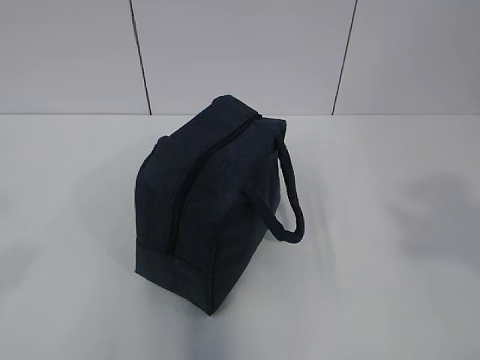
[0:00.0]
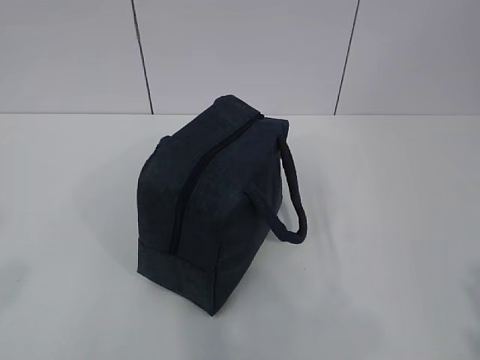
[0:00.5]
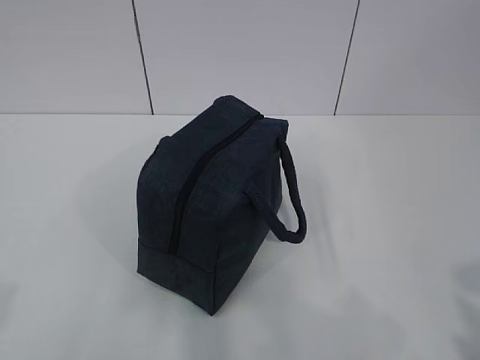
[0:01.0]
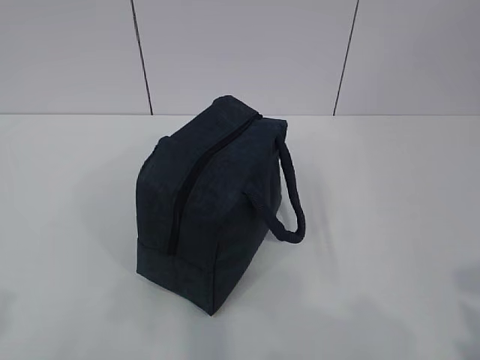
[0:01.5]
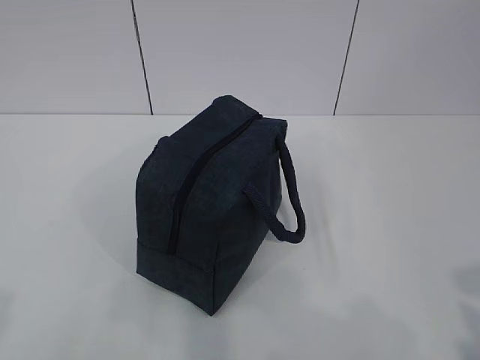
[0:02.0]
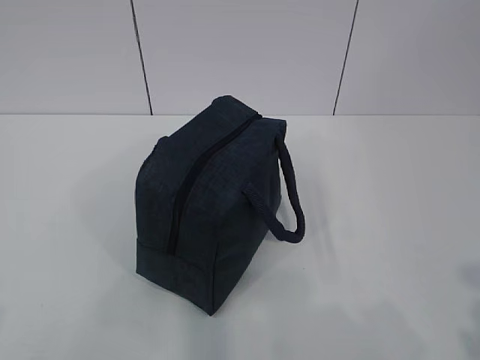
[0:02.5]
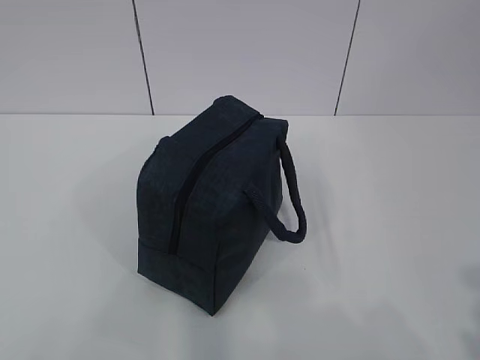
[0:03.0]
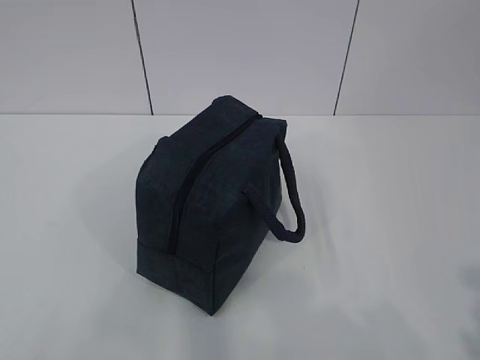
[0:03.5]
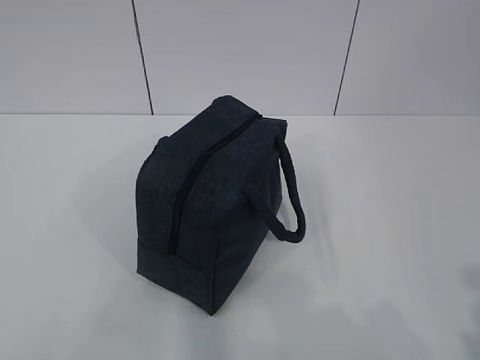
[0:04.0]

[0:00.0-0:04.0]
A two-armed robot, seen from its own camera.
0:00.0 to 0:02.0: The right gripper moves downward, approximately 15 cm; the left gripper travels downward by about 5 cm.

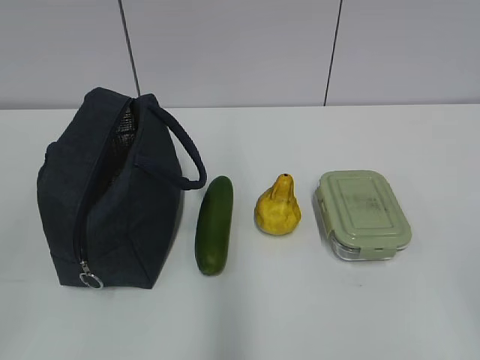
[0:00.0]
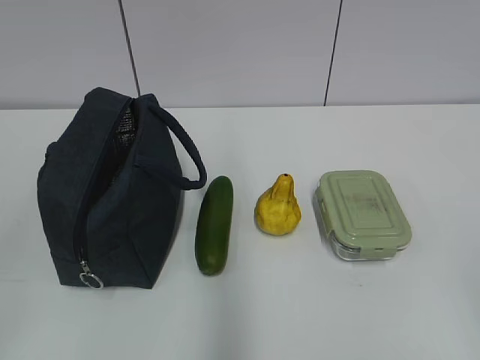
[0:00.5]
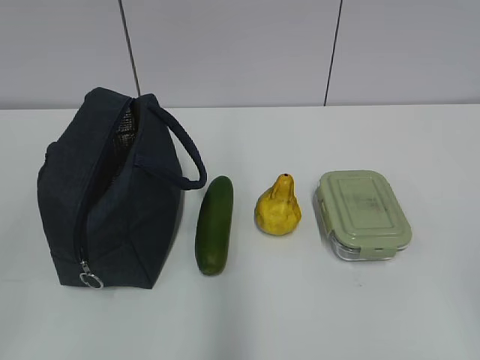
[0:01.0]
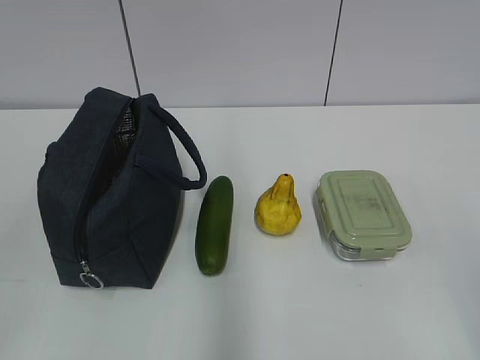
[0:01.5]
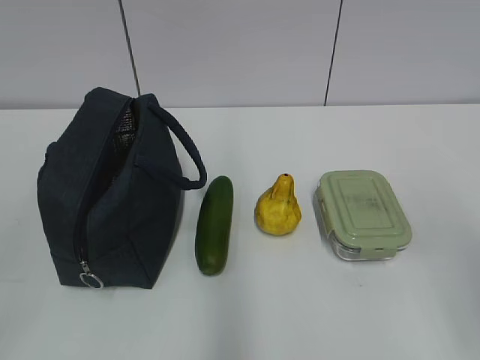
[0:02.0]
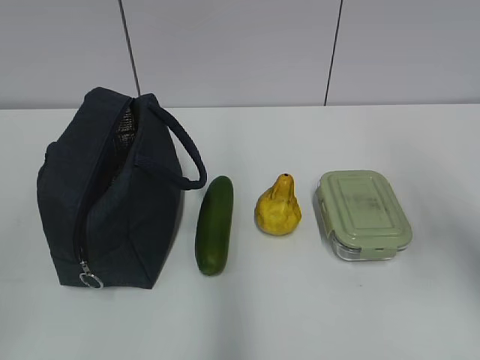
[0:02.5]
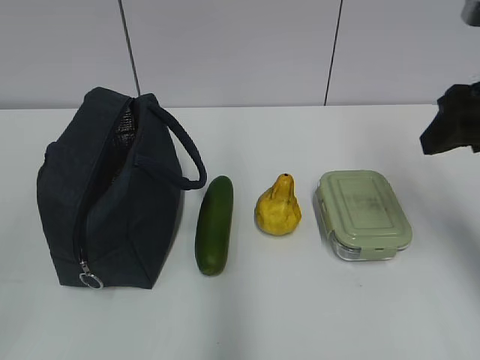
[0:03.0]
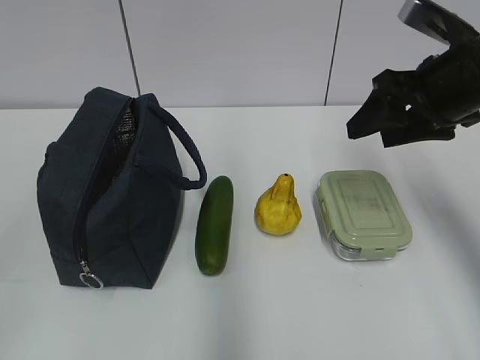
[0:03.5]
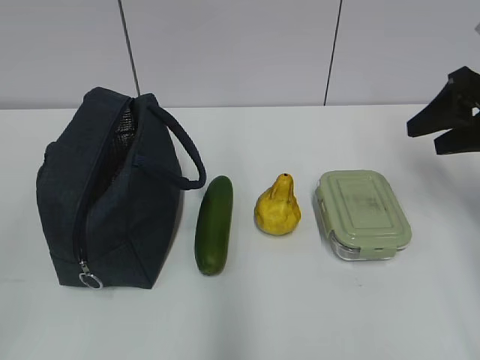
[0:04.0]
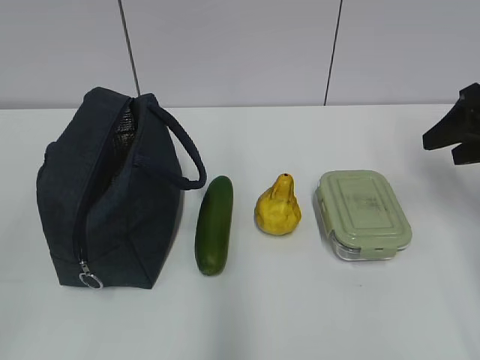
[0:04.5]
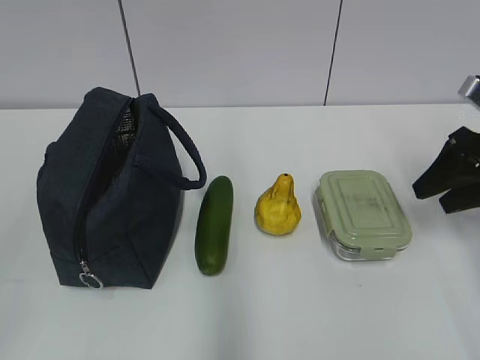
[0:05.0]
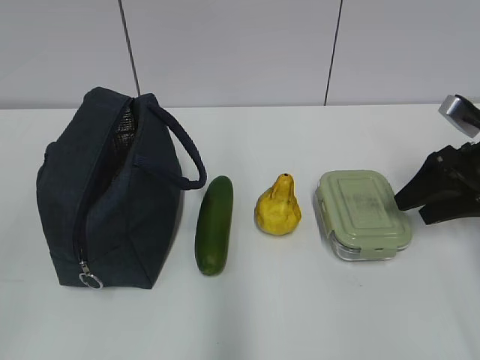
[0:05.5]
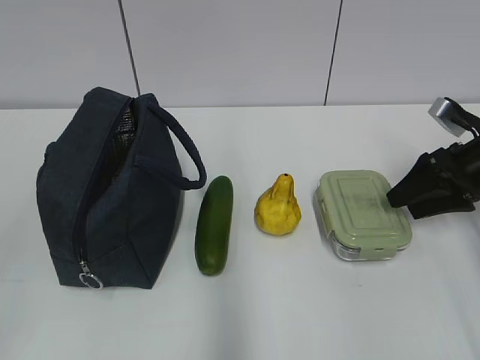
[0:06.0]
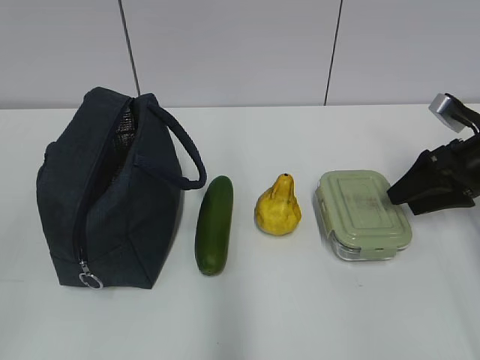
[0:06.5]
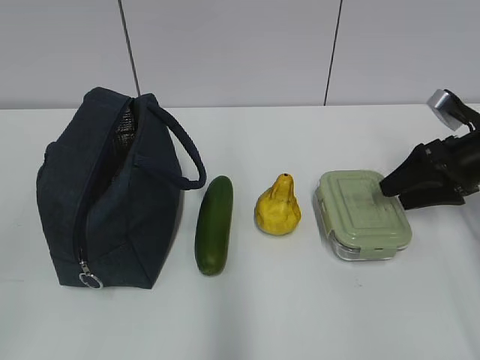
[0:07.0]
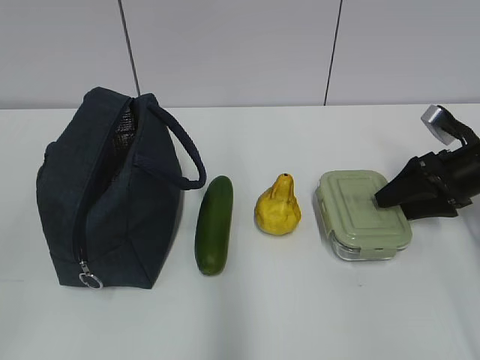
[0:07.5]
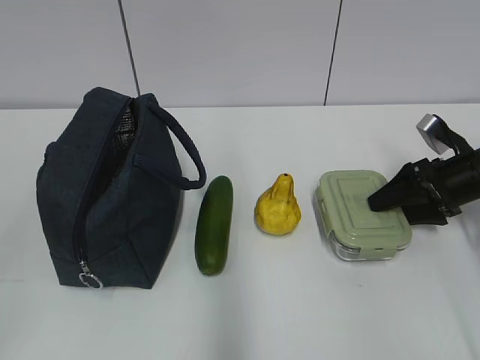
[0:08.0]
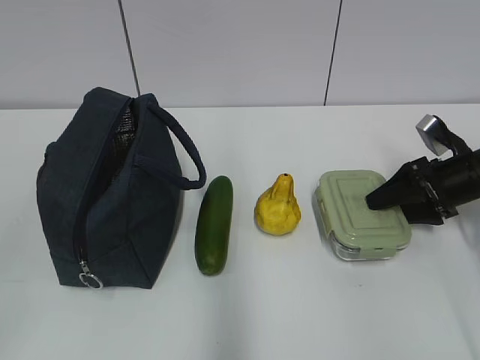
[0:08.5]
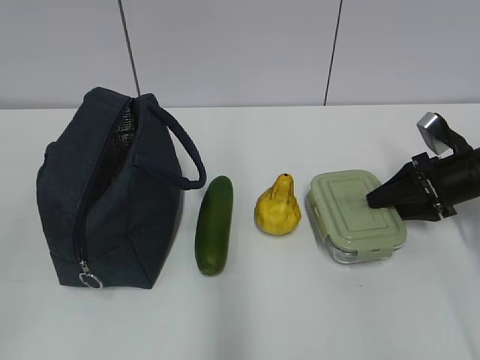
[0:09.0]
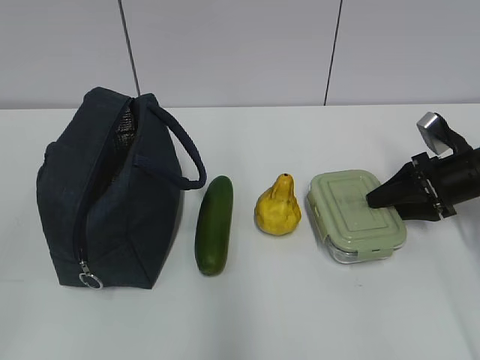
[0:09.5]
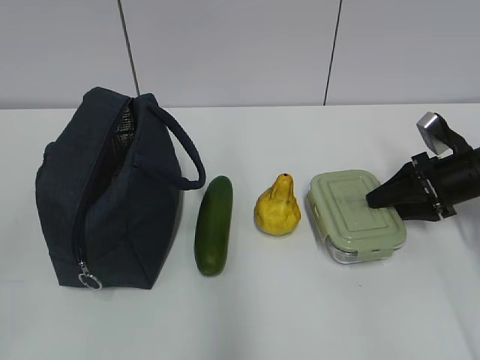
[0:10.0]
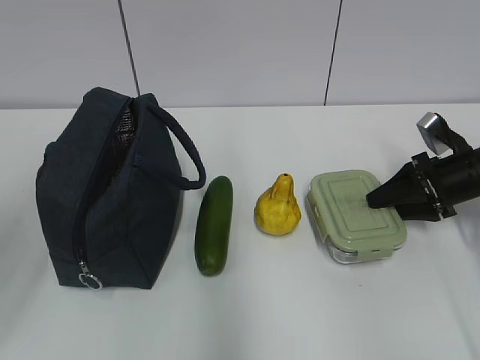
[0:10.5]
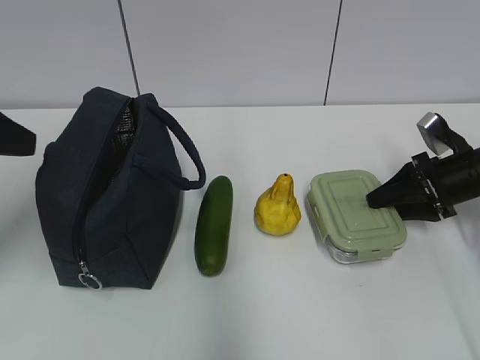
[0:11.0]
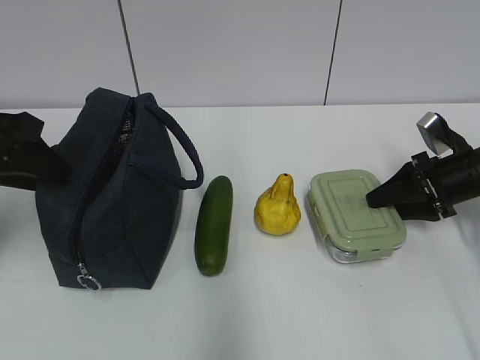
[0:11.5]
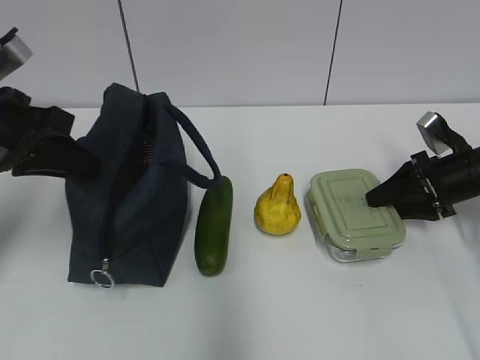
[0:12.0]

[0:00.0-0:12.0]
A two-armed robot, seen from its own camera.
Step, 0:00.0 to 0:11.5: Grab the lunch bag with your left hand.
0:02.0 to 0:04.0: The right gripper moves forward, roughly 25 cm.
0:04.0 to 0:06.0: The right gripper heads downward, covering some 10 cm.
0:06.0 to 0:08.0: The grippers stay close to where they were, moving slightly.
0:08.0 to 0:10.0: Both grippers stay put.
0:10.0 to 0:12.0: The left gripper heads forward, covering roughly 30 cm, and closes up.

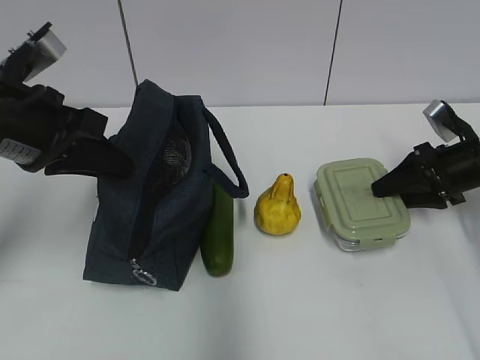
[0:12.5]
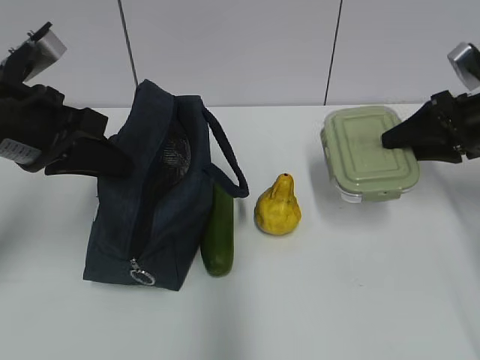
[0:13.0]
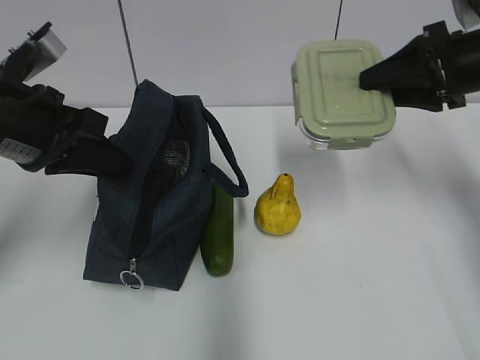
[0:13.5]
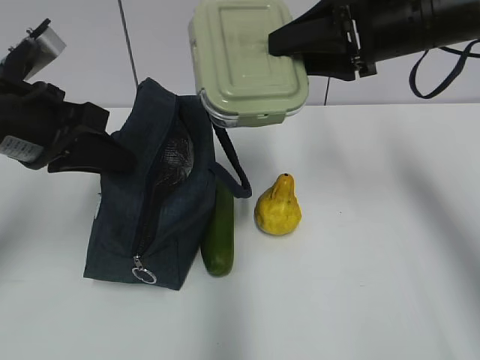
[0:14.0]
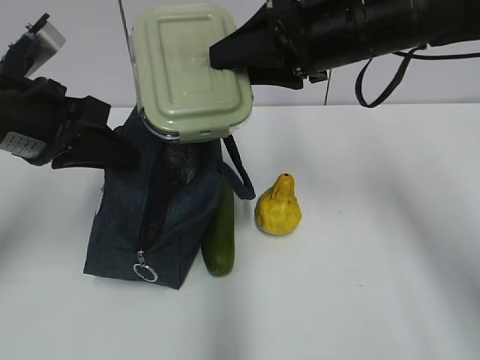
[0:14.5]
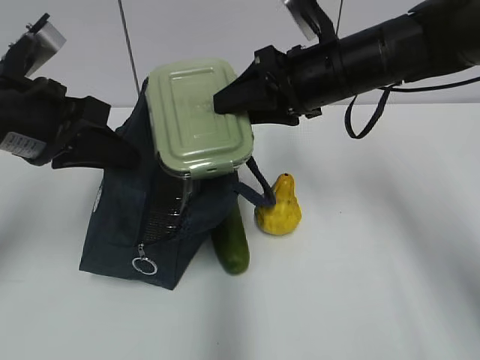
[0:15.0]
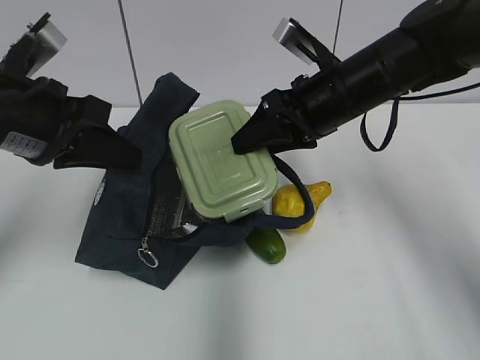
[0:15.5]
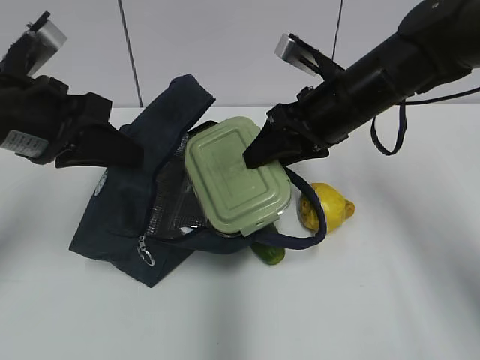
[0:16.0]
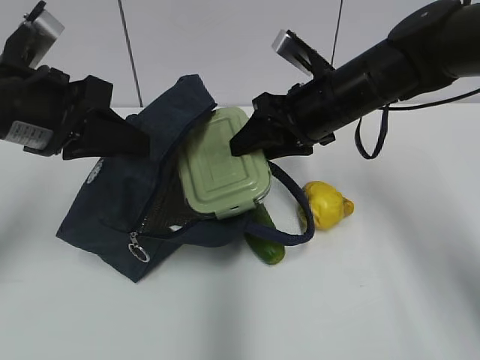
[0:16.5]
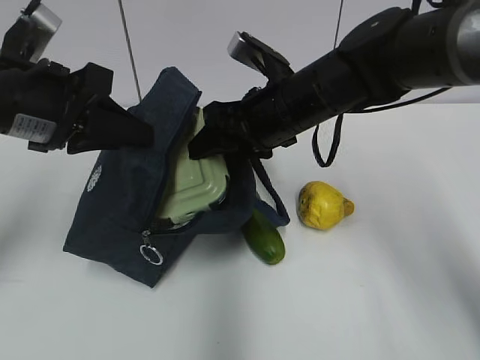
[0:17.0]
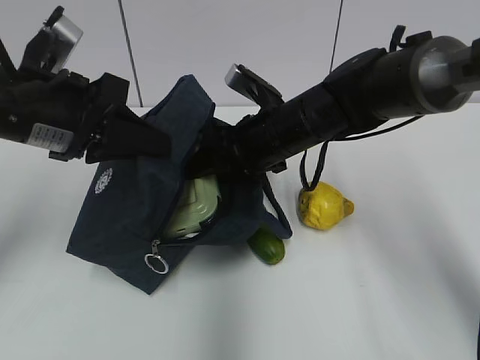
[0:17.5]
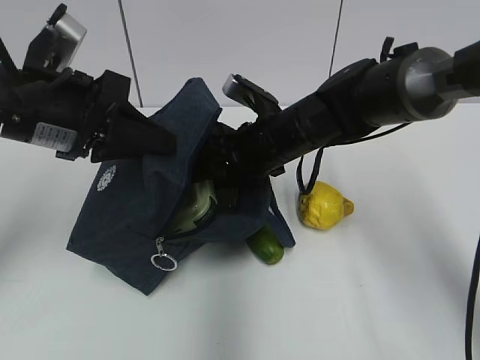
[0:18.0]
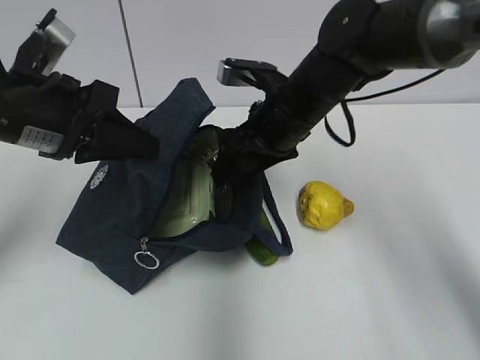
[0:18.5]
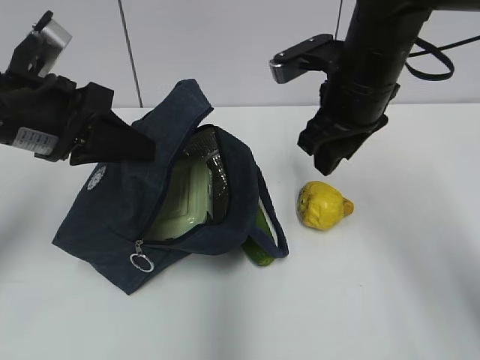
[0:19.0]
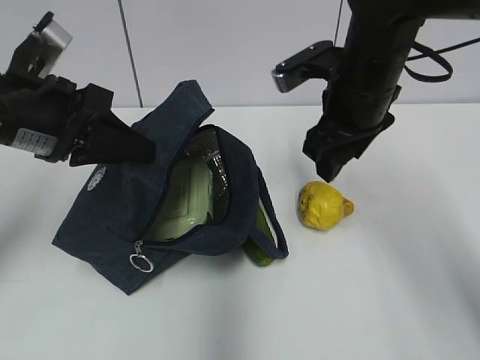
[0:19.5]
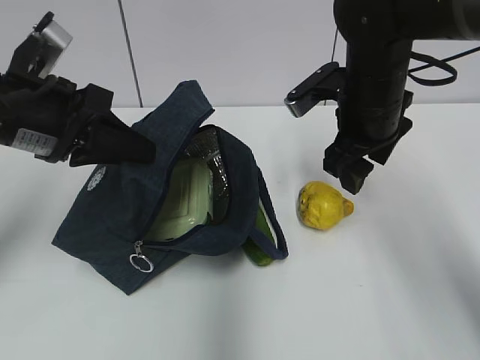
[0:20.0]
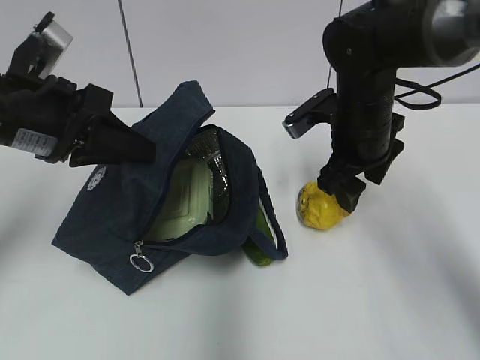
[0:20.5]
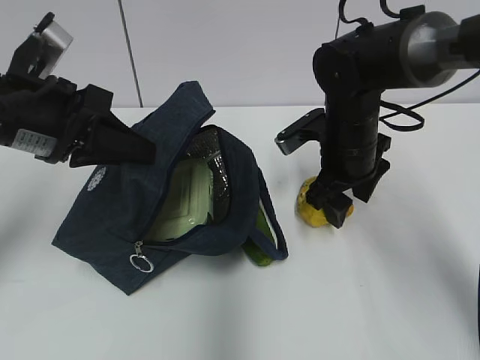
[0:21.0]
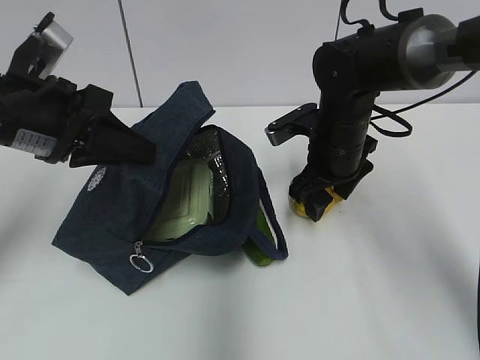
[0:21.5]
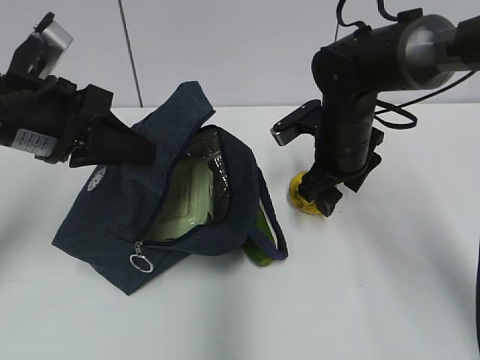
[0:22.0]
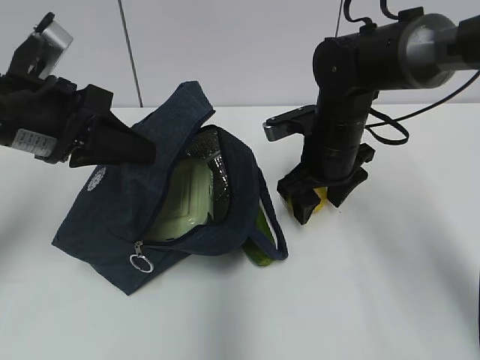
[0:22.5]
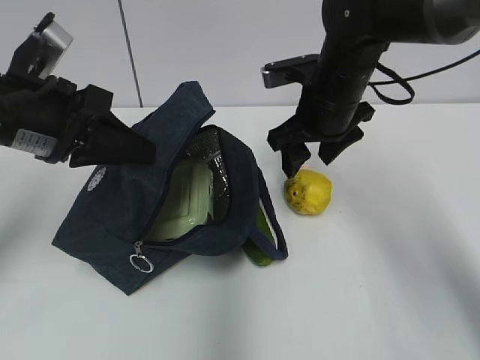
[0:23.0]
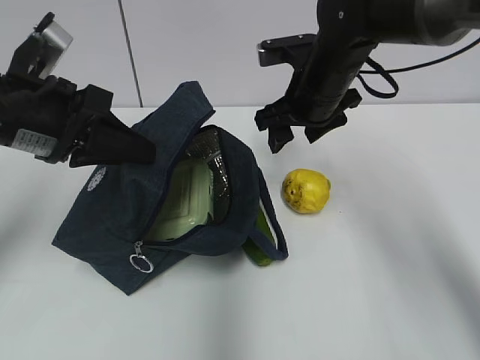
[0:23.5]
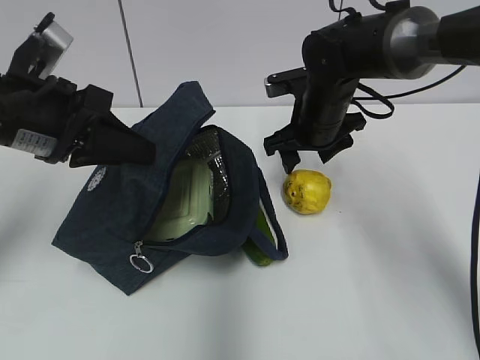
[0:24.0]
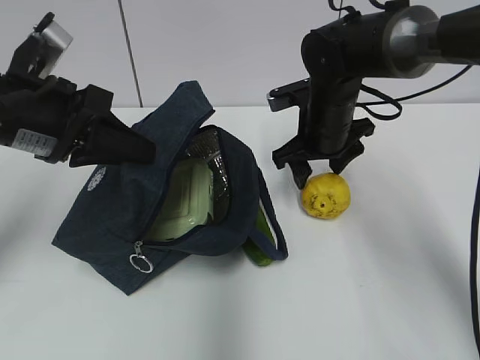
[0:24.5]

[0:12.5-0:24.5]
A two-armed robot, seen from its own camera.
Step, 0:13.0 to 0:18.0: Place it into the bag with your right hand.
0:12.5 to 0:14.5: The right gripper is displaced to the left and upward by approximately 25 cm.
0:14.5 to 0:16.5: The right gripper goes some 10 cm downward.
0:18.5 to 0:20.5: The right gripper is displaced to the right by approximately 5 cm.
0:20.5 to 0:22.5: The grippers make only small movements.
